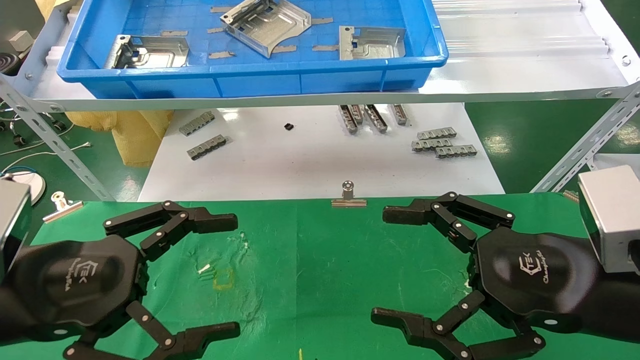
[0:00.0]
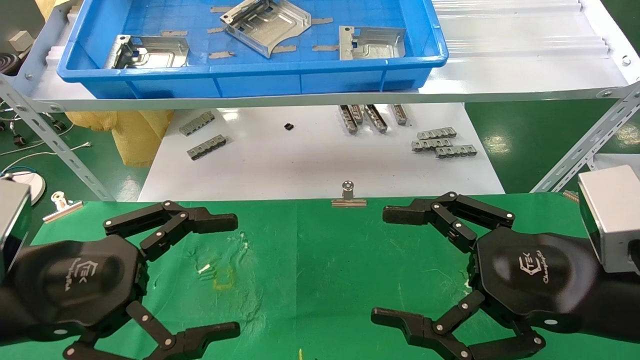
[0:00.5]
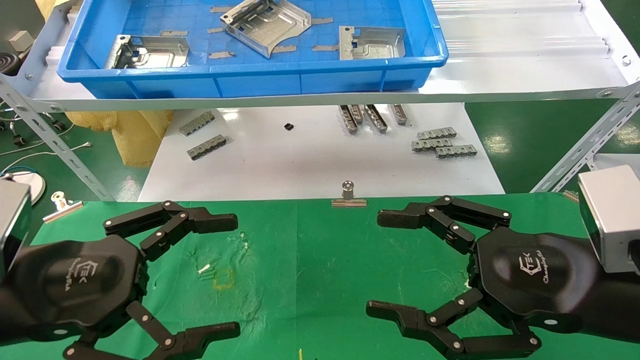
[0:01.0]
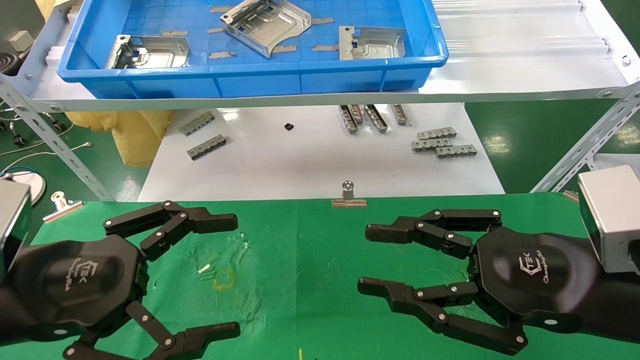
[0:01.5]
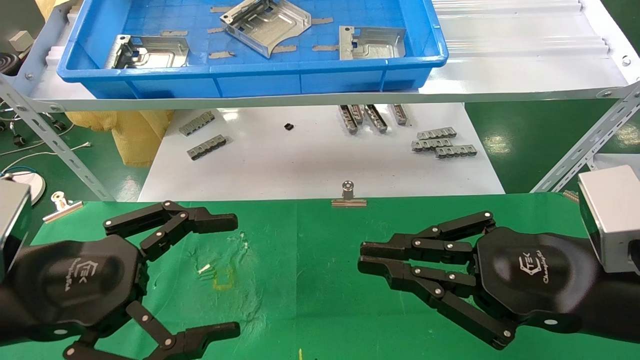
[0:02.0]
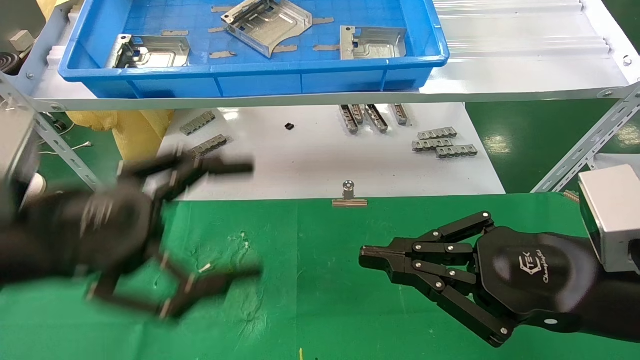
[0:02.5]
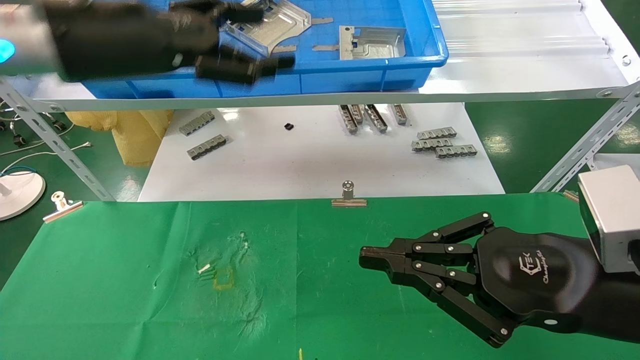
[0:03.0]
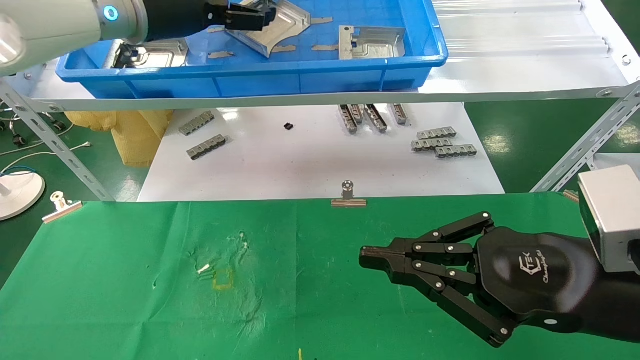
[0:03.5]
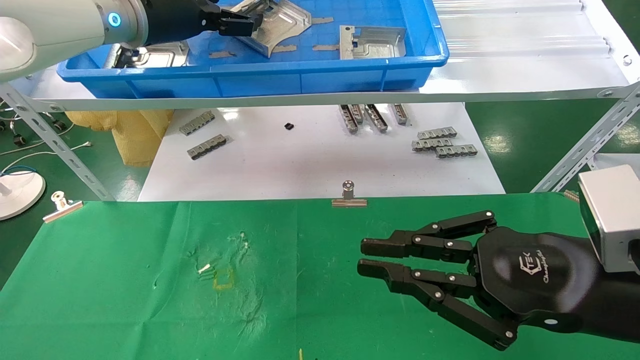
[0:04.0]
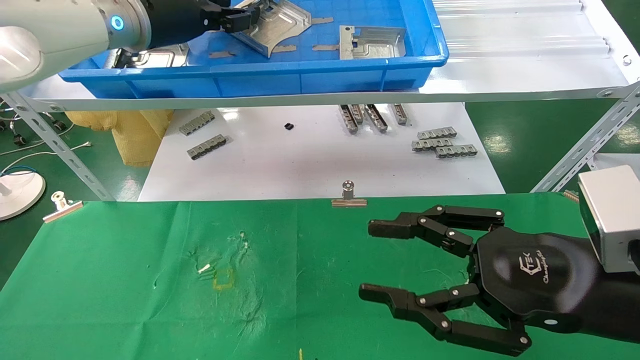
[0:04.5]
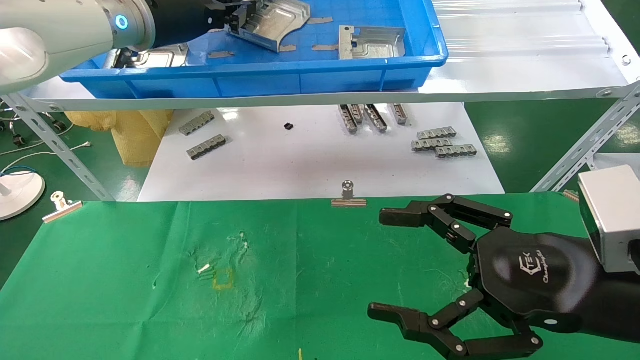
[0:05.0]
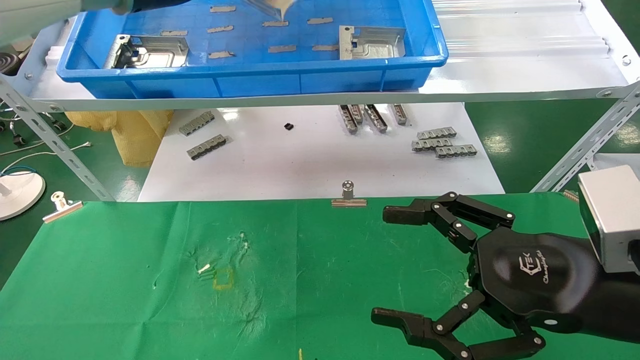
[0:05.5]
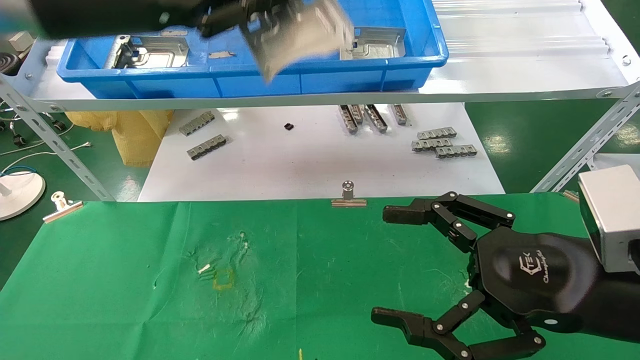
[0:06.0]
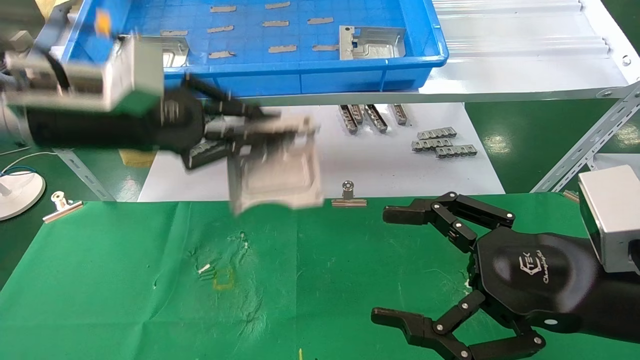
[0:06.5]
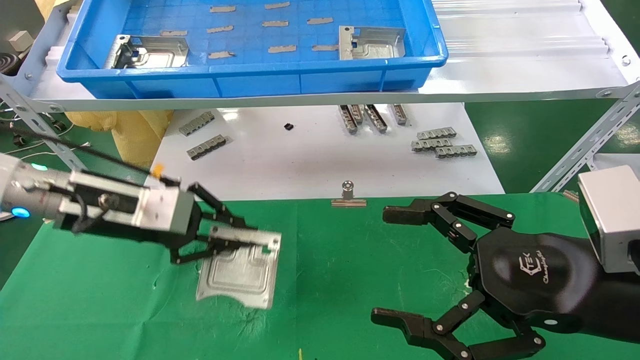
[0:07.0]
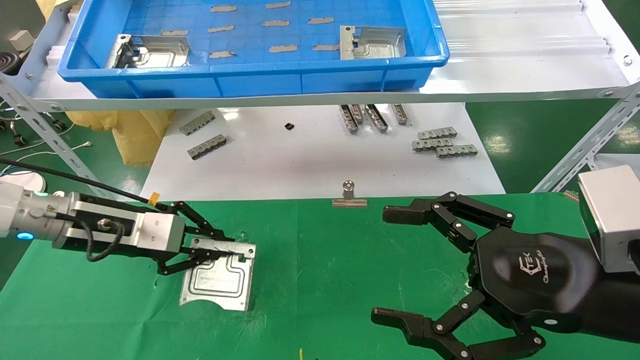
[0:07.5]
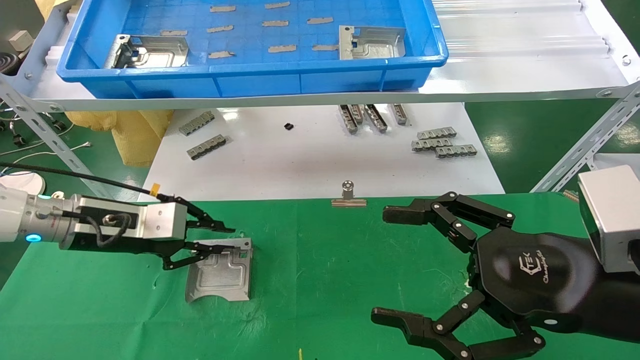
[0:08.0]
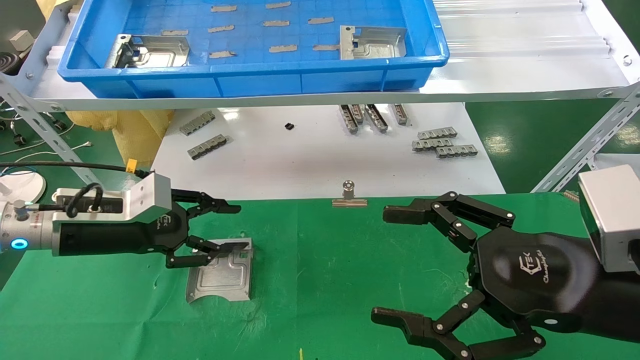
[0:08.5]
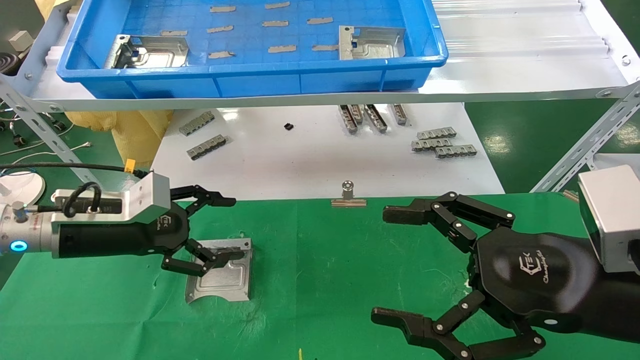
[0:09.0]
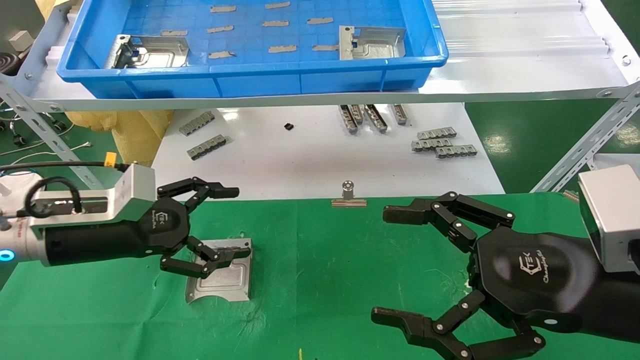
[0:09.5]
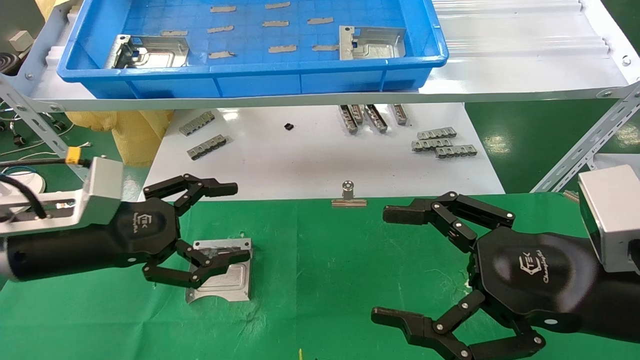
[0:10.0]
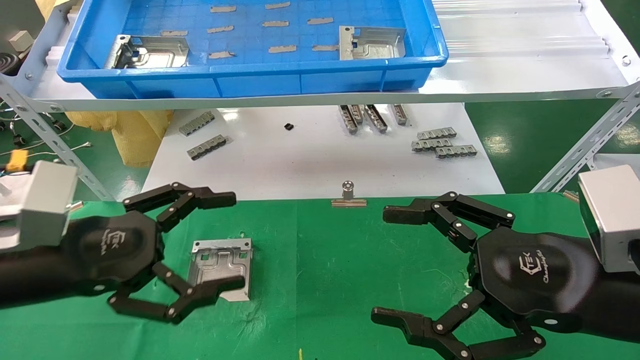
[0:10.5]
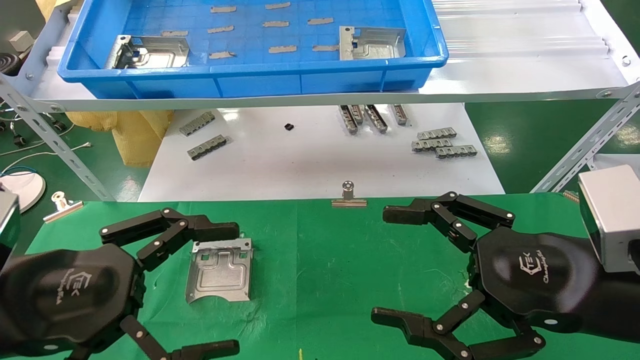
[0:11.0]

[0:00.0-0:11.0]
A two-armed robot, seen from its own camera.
Task of the whole recording: use the mechanical arm to pick up the parts and place them on the table.
Step, 0:02.5 to 0:04.5: Pick up the hard drive bracket from the feeding area.
Step, 0:05.0 to 0:08.0: Place the hard drive bracket into the box.
0:00.0 to 0:02.0: The right gripper closes.
0:02.0 to 0:03.5: The left gripper goes approximately 35 cm upward and forward.
0:03.5 to 0:05.5: The left gripper closes. The right gripper opens.
0:05.5 to 0:07.5: The left gripper moves downward, about 25 cm.
0:07.5 to 0:09.0: The left gripper opens.
0:09.0 to 0:11.0: The left gripper is displaced backward by approximately 15 cm.

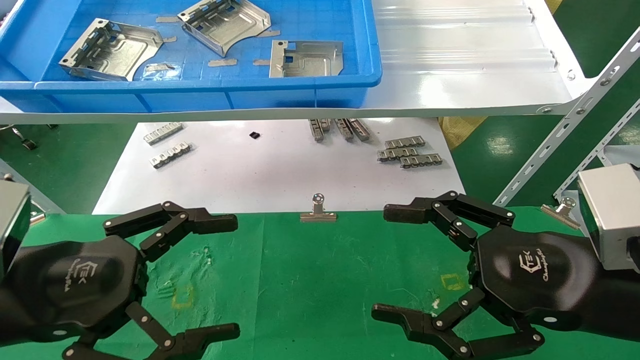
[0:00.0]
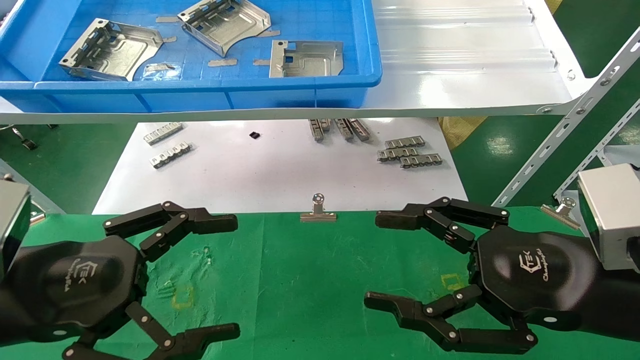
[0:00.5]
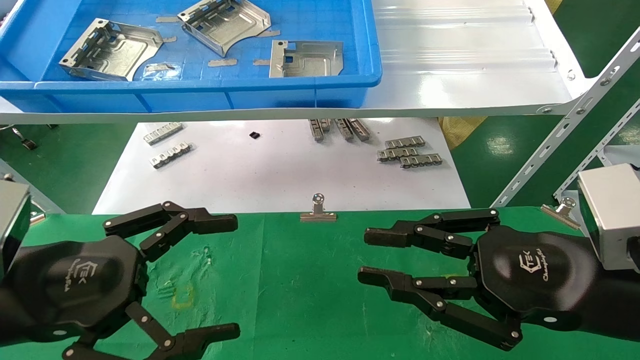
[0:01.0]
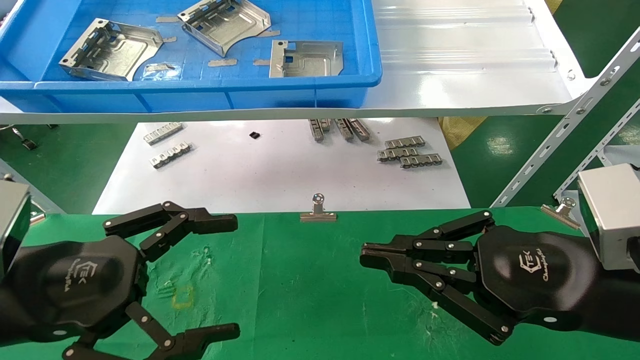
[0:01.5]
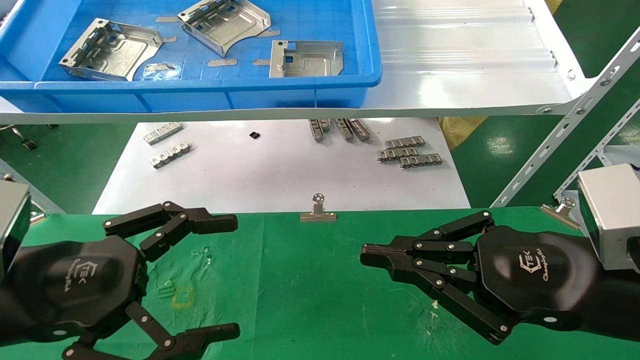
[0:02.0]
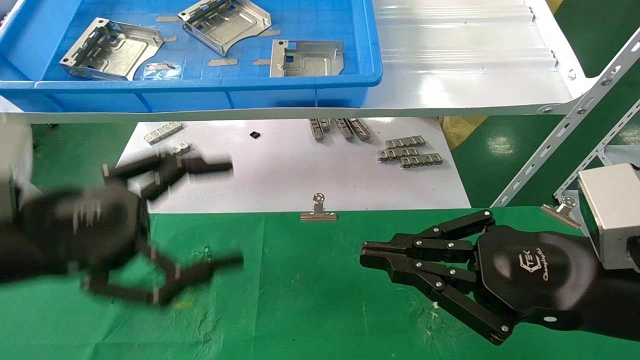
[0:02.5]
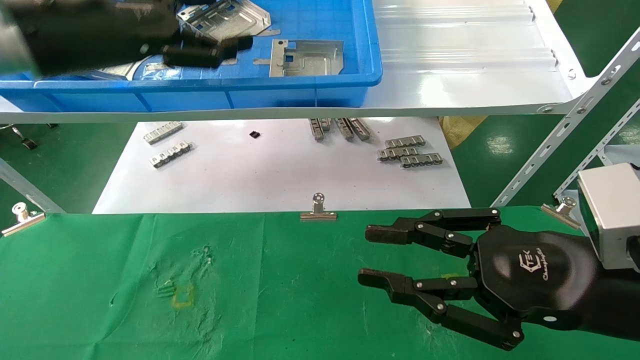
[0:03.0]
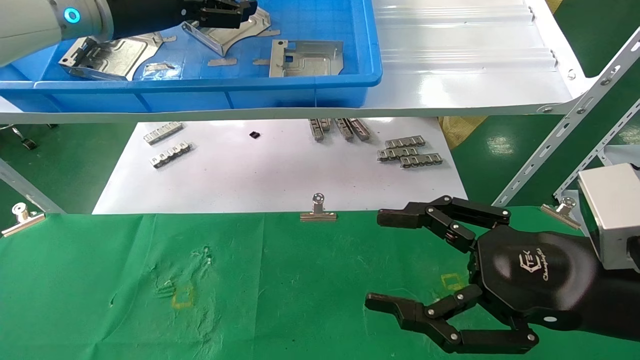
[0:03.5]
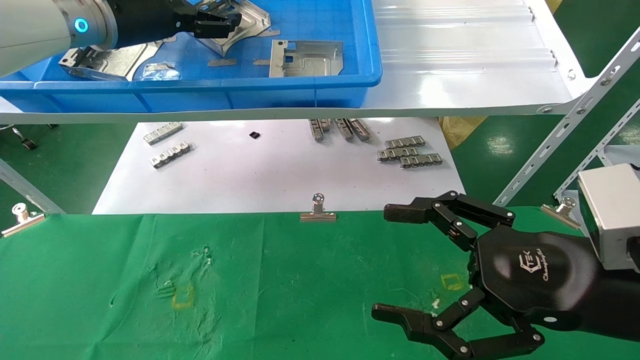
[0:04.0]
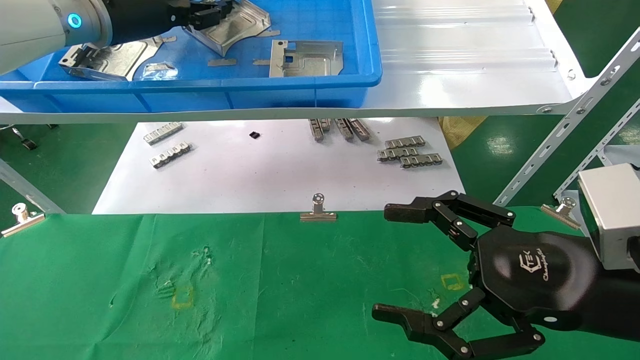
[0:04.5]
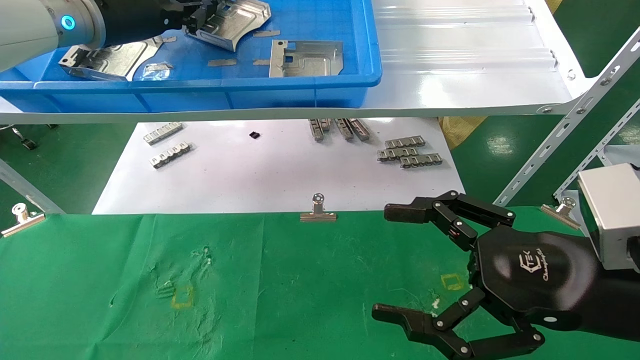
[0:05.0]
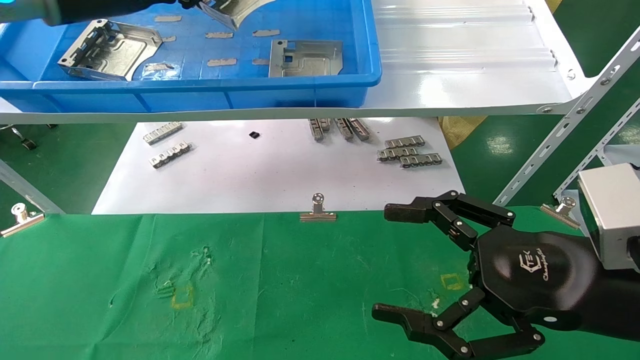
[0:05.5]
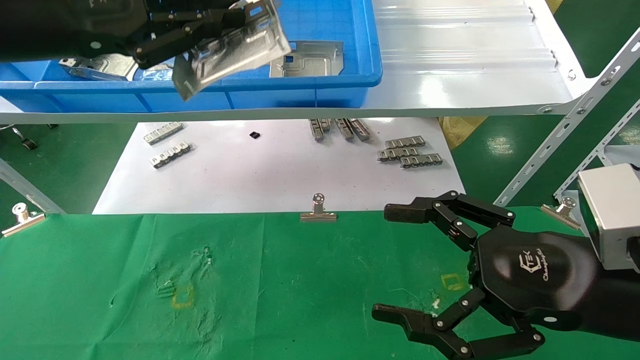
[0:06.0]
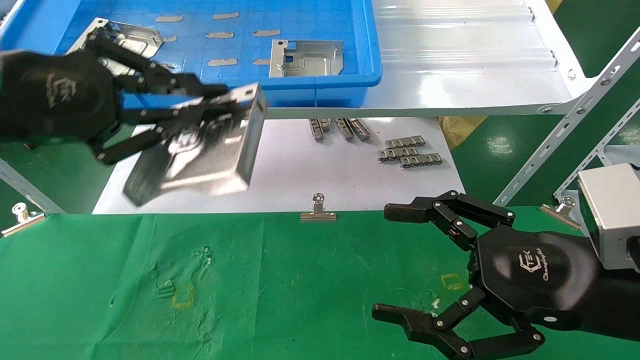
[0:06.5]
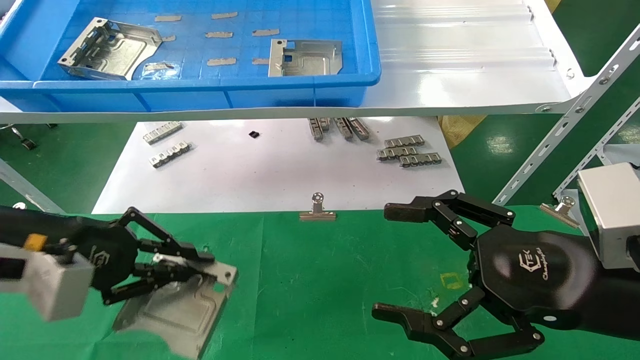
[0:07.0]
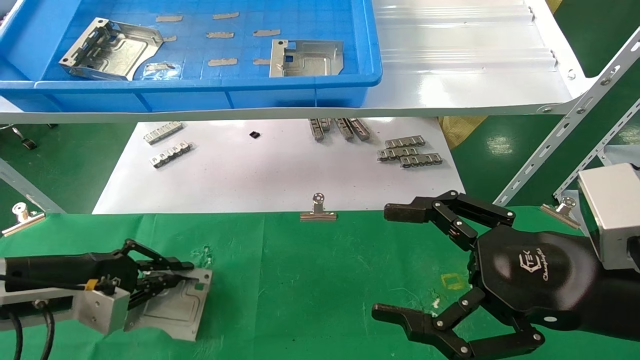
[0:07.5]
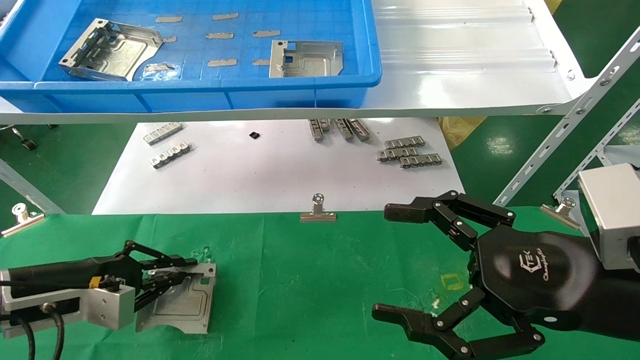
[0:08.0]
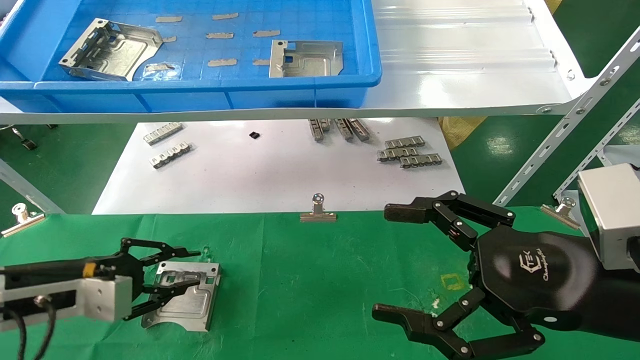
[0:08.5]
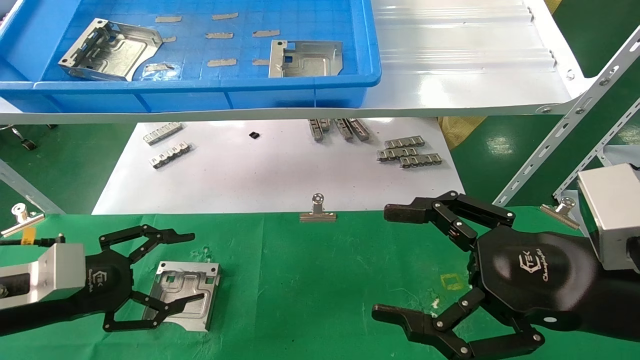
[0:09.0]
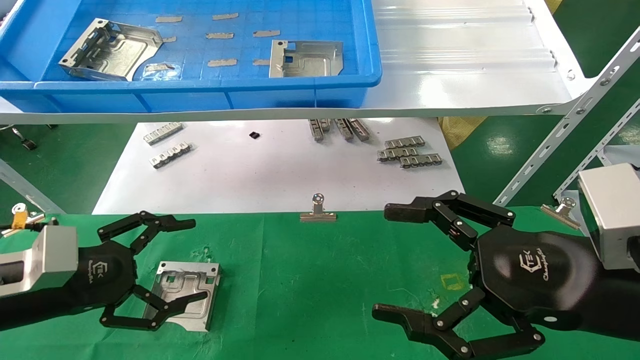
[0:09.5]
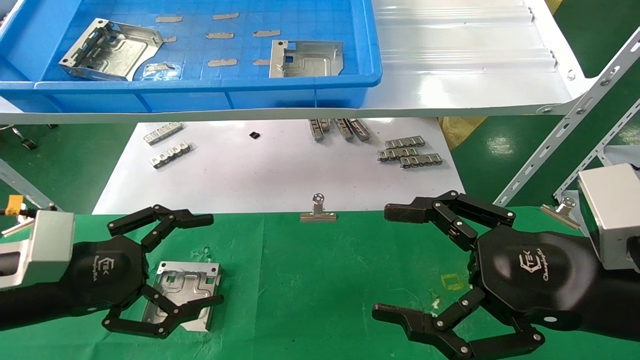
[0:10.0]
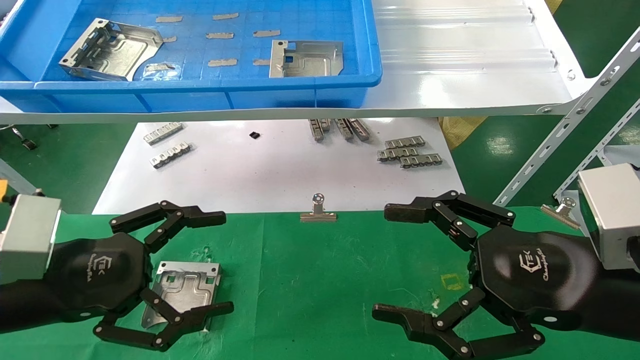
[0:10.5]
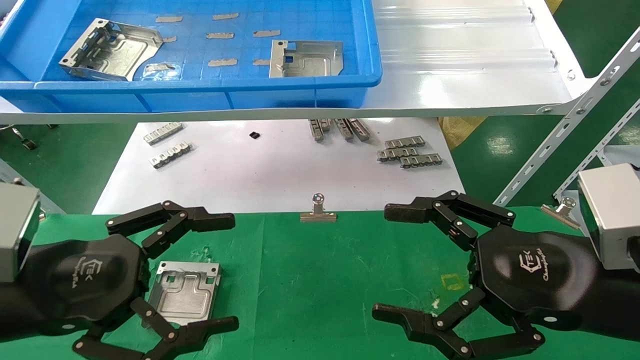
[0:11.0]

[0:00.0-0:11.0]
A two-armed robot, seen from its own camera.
Task of the whole recording: use the mechanical arm to pick up the parts and place them on the table.
Step, 0:02.5 to 0:05.0: Pick up the hard drive bracket from the feeding area.
Step, 0:05.5 to 0:08.0: Place the hard drive bracket into the box.
0:00.0 to 0:02.0: The right gripper closes.
0:02.0 to 0:03.5: The right gripper opens, while the left gripper moves upward and forward, some 30 cm.
0:03.5 to 0:05.5: The left gripper shifts by roughly 5 cm, and closes.
0:05.5 to 0:07.5: The left gripper heads downward, covering roughly 30 cm.
0:07.5 to 0:09.0: The left gripper opens its fingers.
0:09.0 to 0:11.0: The left gripper shifts roughly 15 cm backward, to the right and upward, and opens its fingers.
